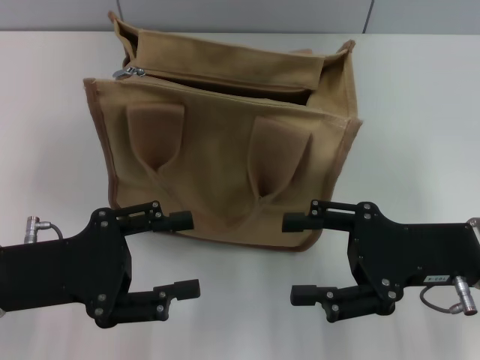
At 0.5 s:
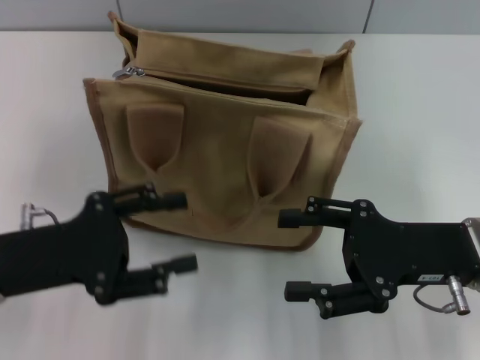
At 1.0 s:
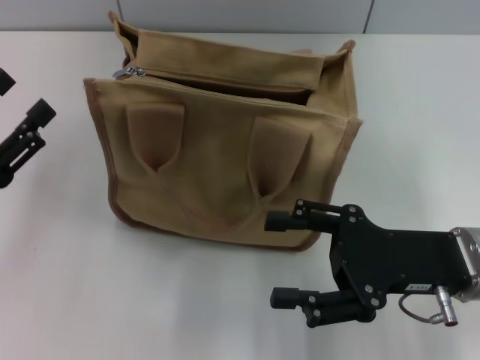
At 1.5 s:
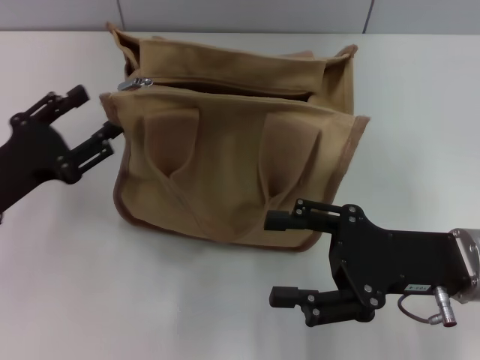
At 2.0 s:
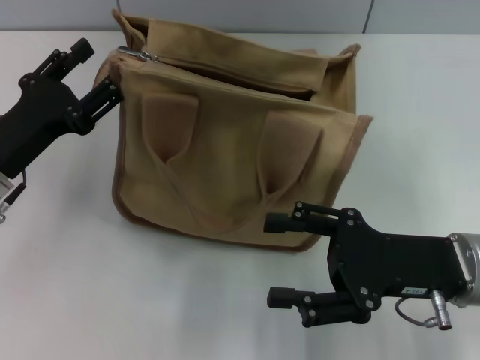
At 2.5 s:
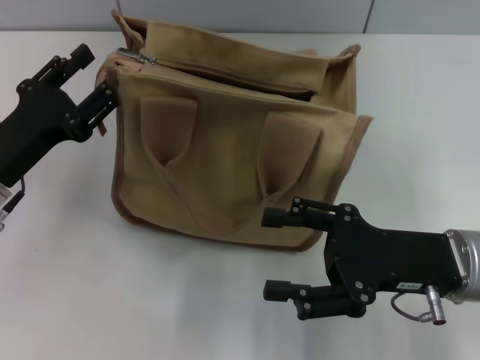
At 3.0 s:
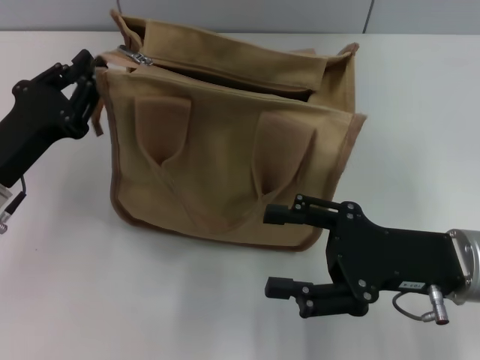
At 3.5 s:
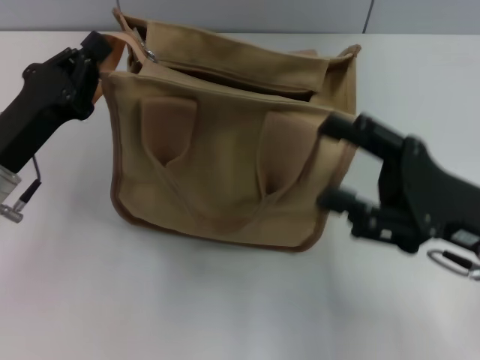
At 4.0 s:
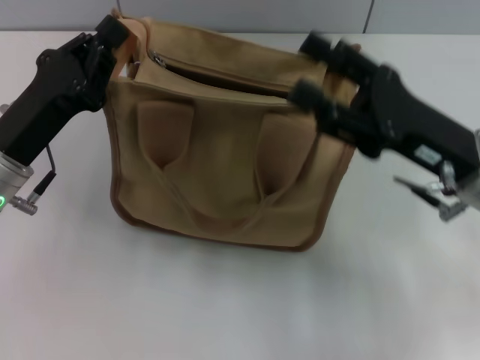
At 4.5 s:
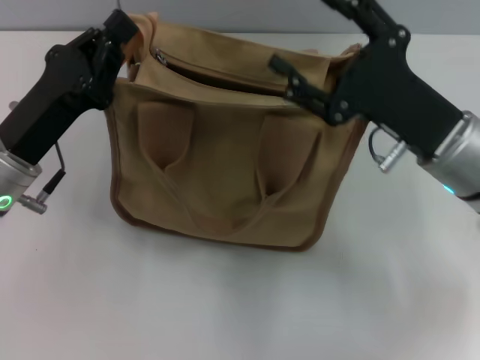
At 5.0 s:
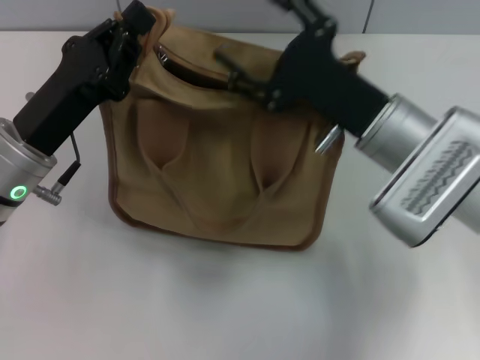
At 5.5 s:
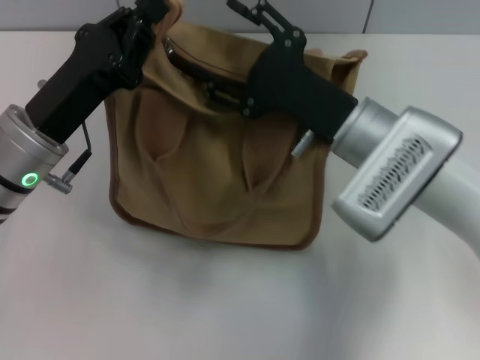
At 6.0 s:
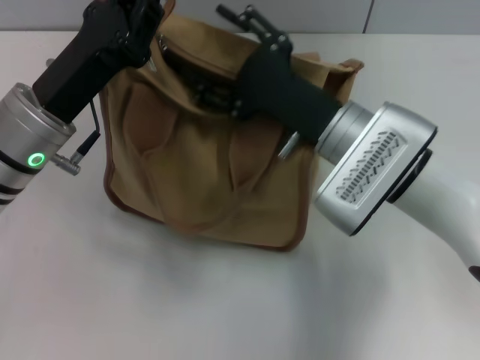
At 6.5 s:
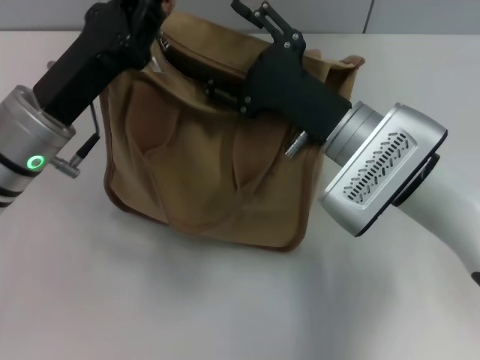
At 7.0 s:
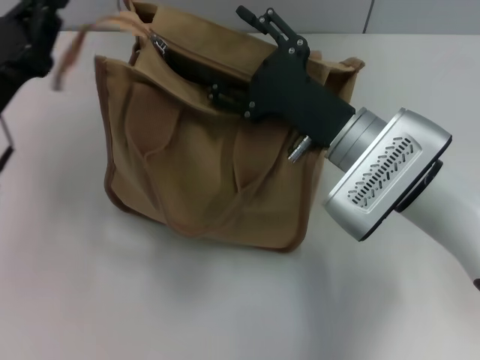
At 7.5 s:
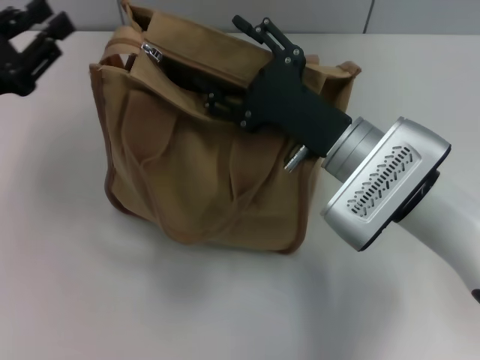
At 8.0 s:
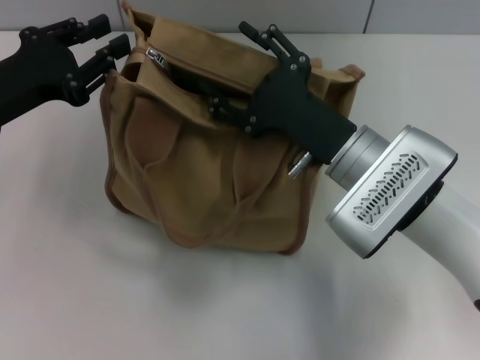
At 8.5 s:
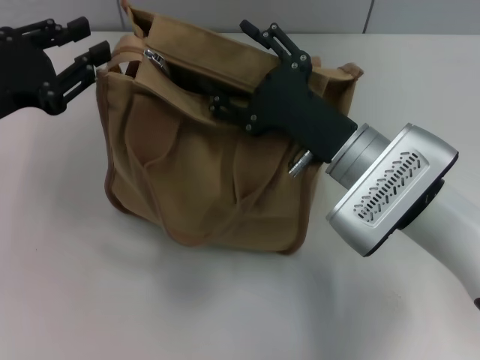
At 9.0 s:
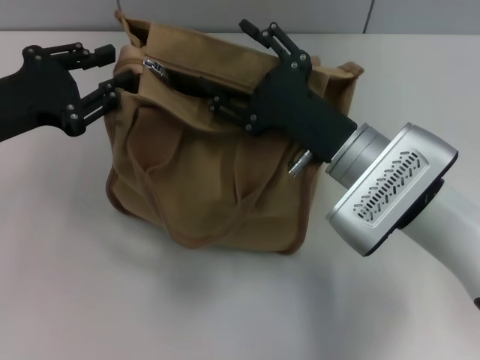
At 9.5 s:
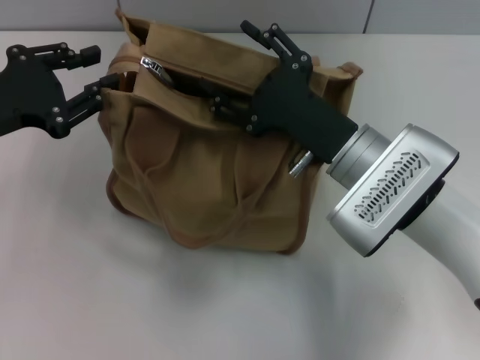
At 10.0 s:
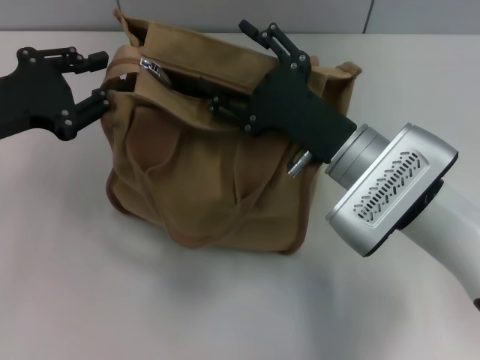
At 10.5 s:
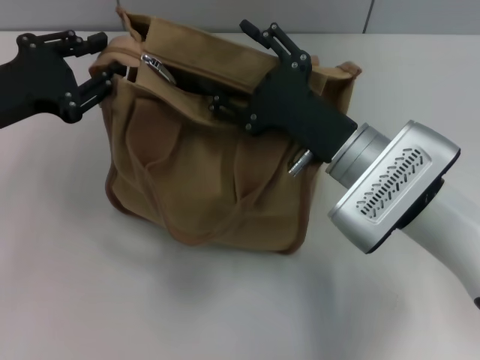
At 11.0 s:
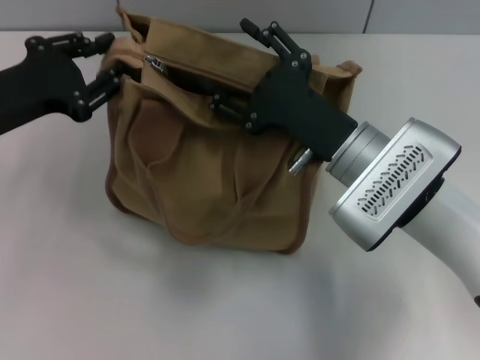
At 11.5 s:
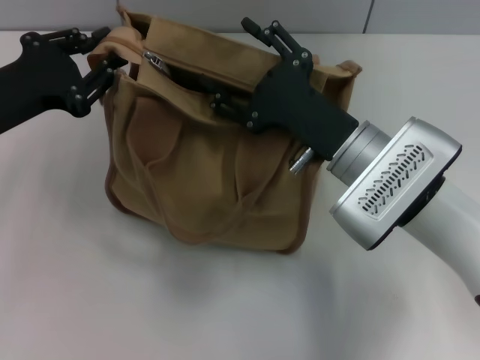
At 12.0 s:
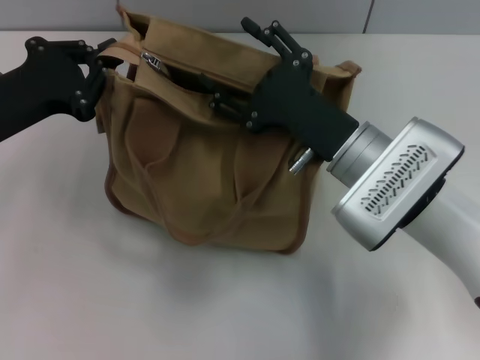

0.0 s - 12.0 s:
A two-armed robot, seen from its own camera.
0.0 s - 2.0 s: The left gripper heads forward, covering about 5 cm.
2.0 s - 4.0 s: The right gripper changes place by approximately 5 cm; the left gripper closes.
4.0 s - 6.0 s: The left gripper ends up about 5 cm from where it was; the right gripper goes approximately 10 cm to the left.
6.0 s - 8.0 s: The left gripper heads to the left, covering approximately 10 cm, and opens its fingers.
8.0 s - 10.0 s: There are only small adjustments of the grippers.
10.0 s - 12.0 s: The left gripper closes its fingers.

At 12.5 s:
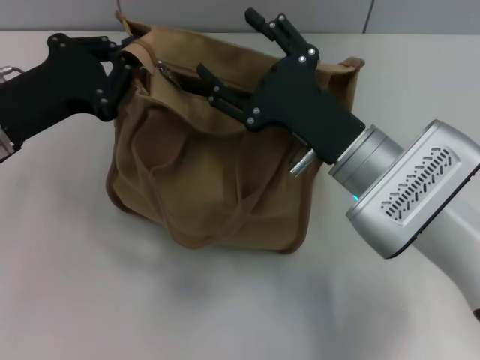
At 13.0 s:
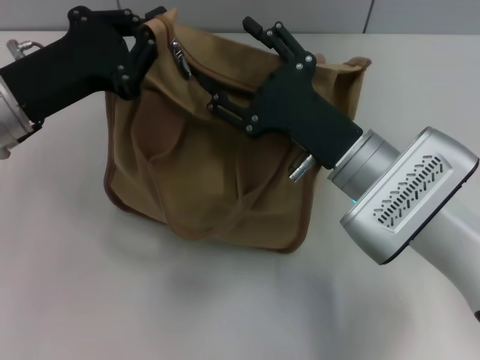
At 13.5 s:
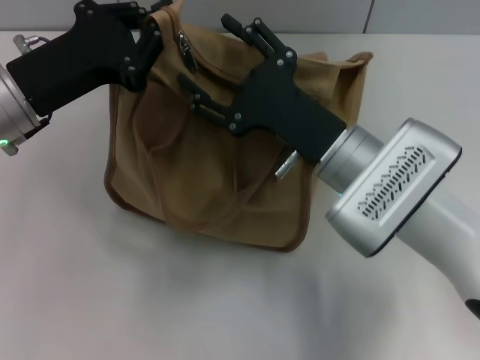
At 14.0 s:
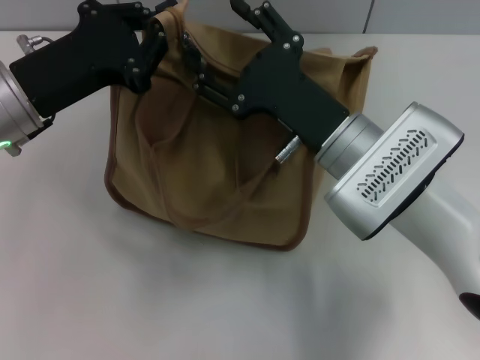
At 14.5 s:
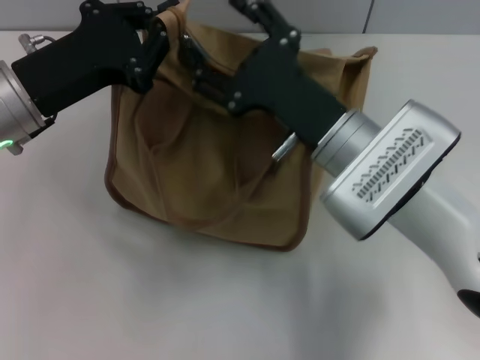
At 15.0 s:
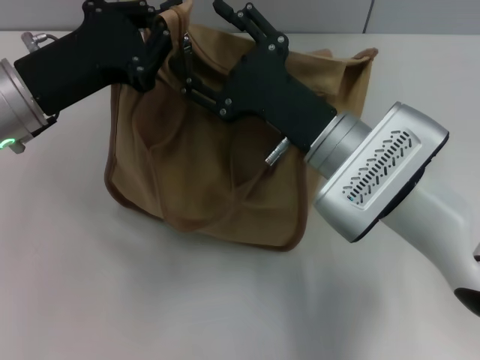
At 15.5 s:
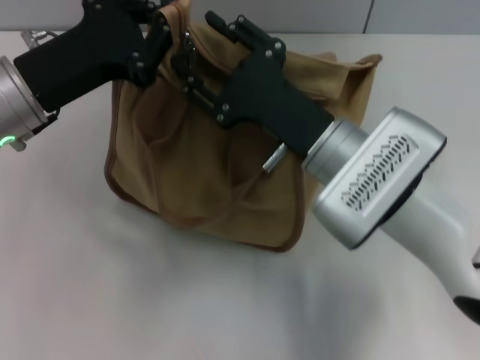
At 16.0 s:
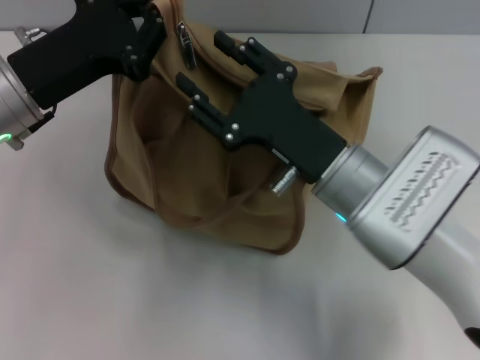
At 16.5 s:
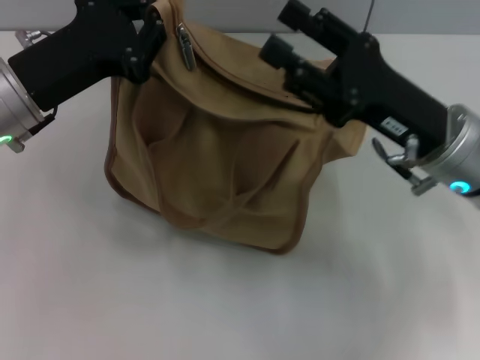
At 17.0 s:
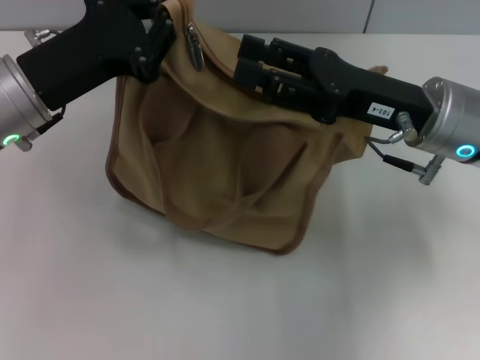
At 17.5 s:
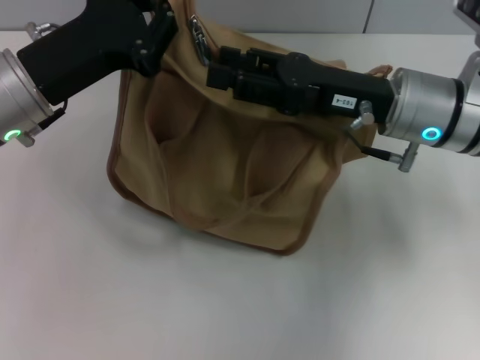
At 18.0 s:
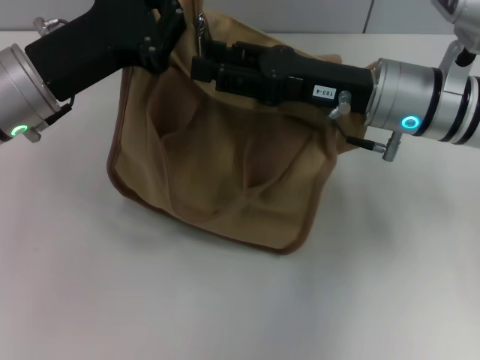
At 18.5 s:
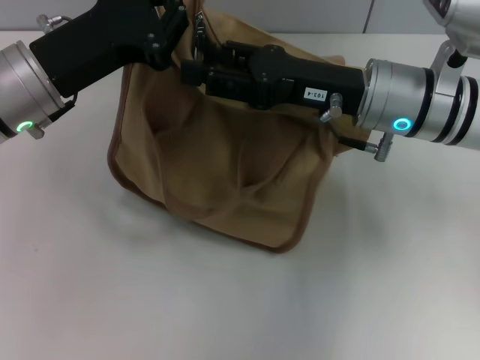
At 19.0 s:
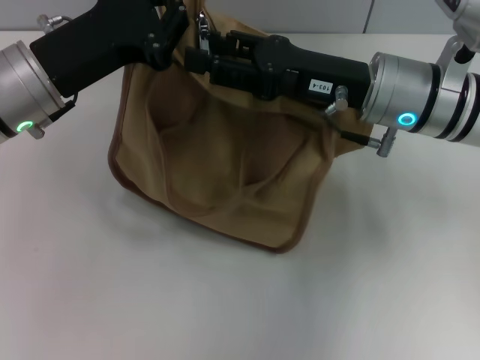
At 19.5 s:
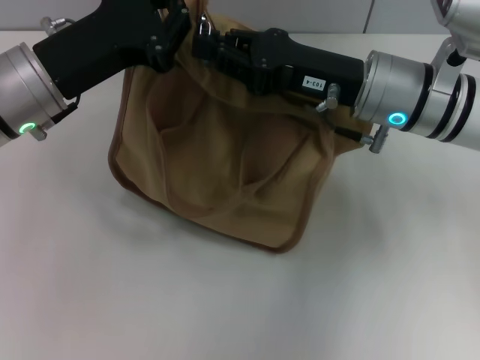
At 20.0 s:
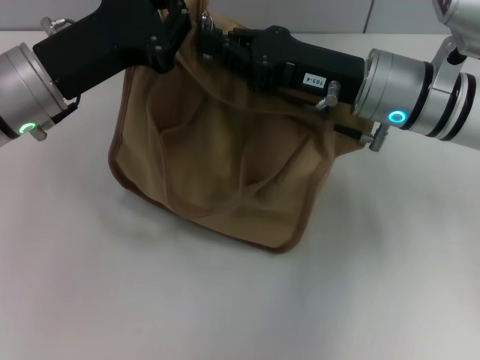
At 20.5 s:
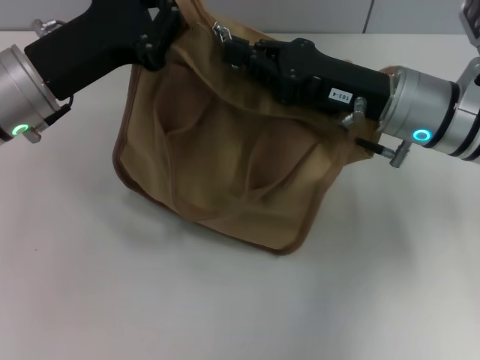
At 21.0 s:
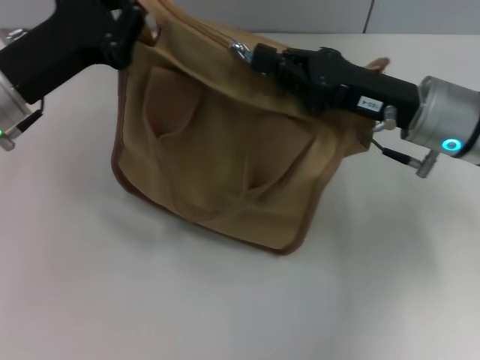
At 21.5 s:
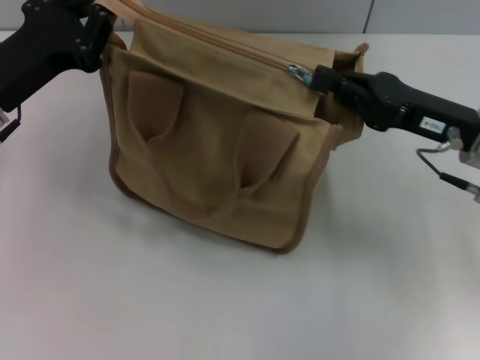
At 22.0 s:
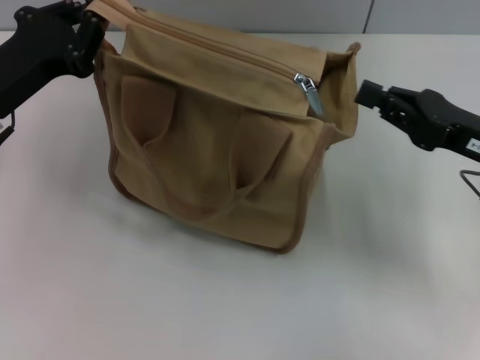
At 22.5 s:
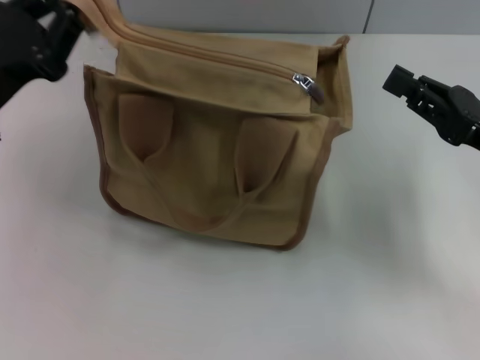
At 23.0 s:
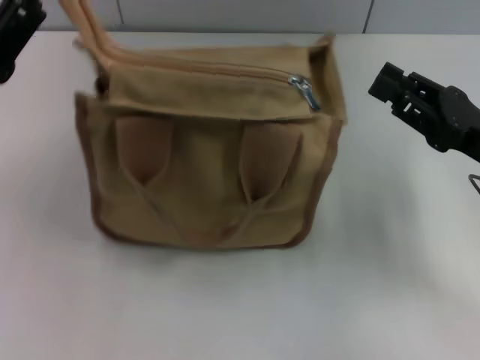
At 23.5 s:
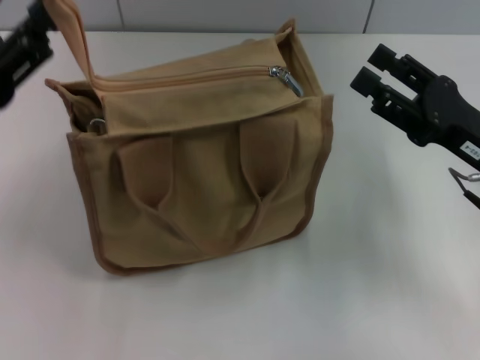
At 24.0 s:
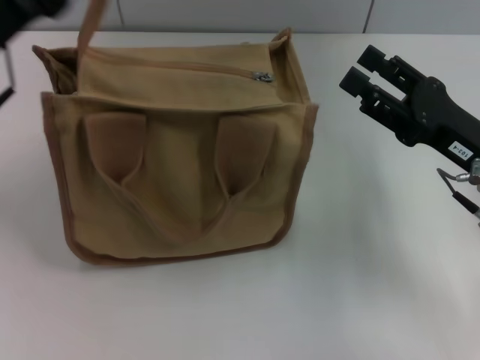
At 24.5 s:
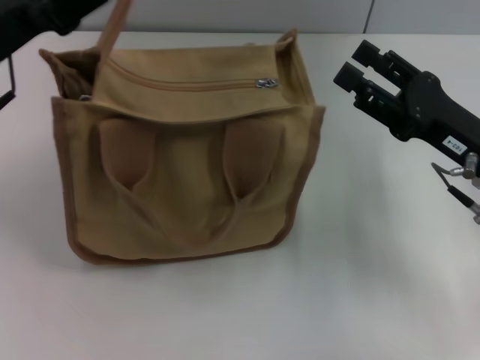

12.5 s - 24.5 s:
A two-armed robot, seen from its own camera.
Step, 12.5 s - 21.5 s: Pull up the zipper with your right hand.
14.5 s - 16.5 s: The right gripper goes approximately 10 cm to the right.
16.5 s - 18.5 s: The right gripper moves forward, roughly 5 cm.
18.5 s - 20.5 s: The right gripper closes.
20.5 s - 22.5 s: The left gripper moves to the left, approximately 5 cm. Meanwhile the right gripper moves to the right and backward, about 15 cm.
22.5 s - 24.5 s: The right gripper opens. Meanwhile the left gripper shifts by approximately 5 cm, and opens.

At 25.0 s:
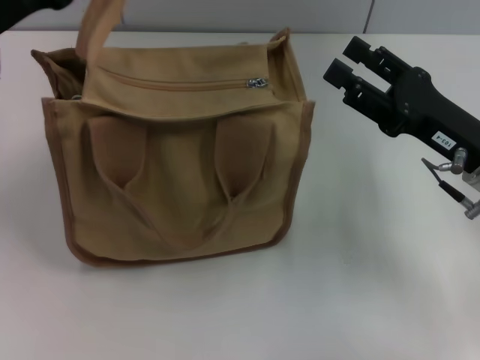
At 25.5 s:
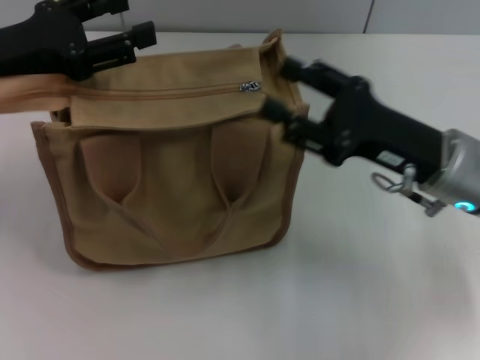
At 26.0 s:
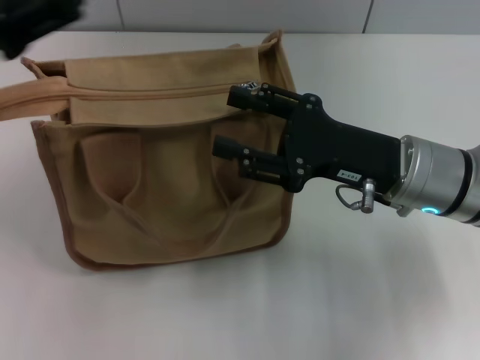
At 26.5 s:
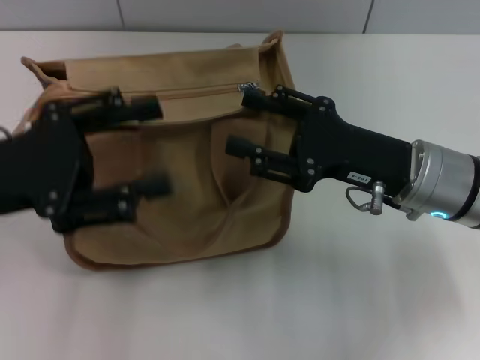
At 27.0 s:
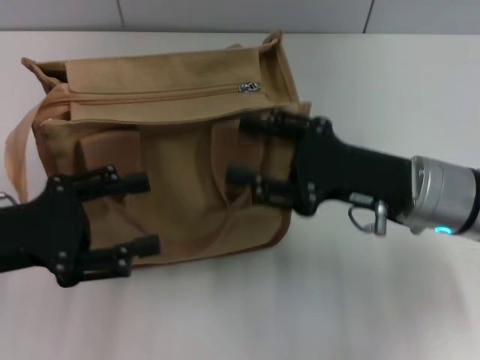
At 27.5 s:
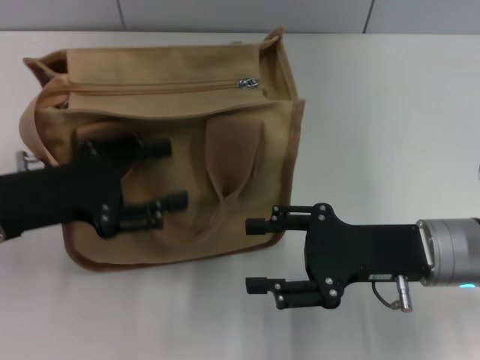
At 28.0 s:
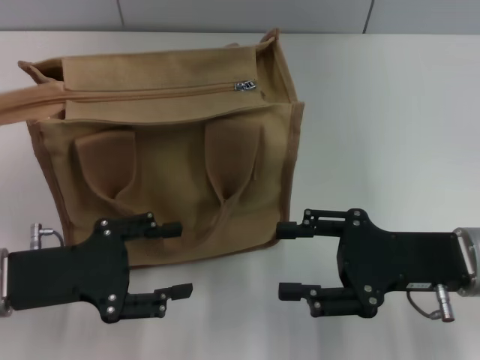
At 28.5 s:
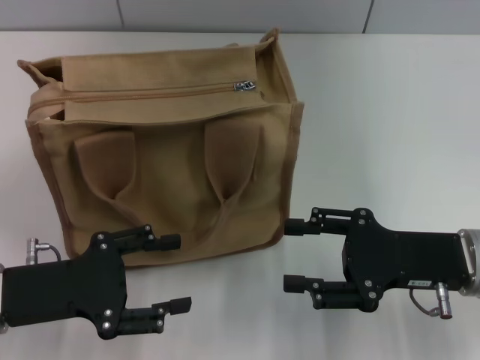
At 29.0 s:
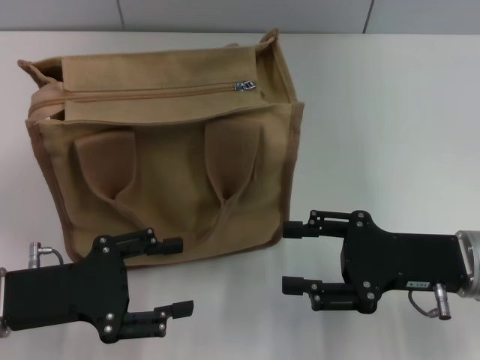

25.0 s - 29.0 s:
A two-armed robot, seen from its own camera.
25.0 s - 27.0 s: The left gripper moves backward and downward, about 15 cm. Meanwhile the right gripper travels to the left by some 5 cm.
27.0 s - 29.0 s: The left gripper moves some 5 cm, while the right gripper shifts by roughly 5 cm.
